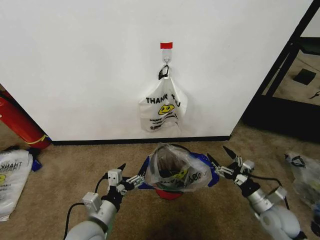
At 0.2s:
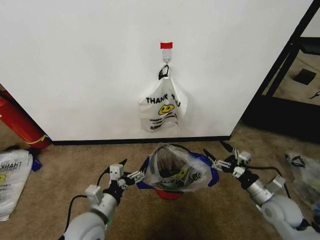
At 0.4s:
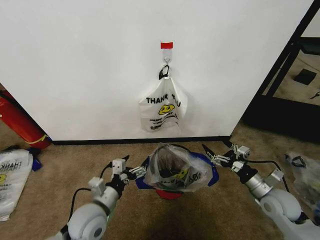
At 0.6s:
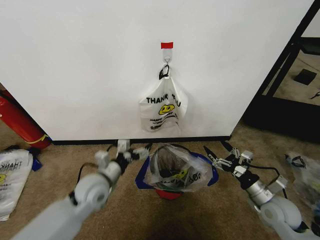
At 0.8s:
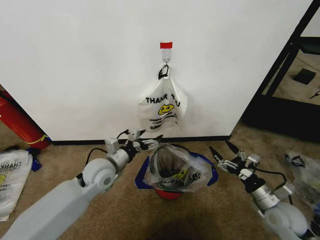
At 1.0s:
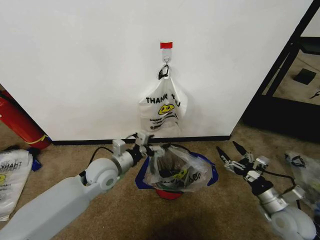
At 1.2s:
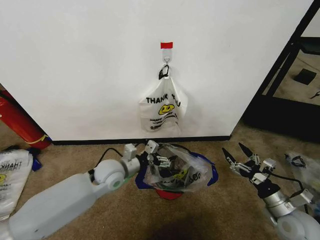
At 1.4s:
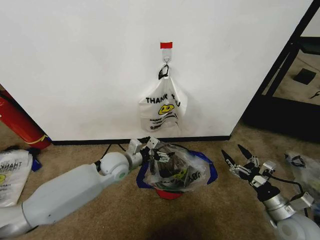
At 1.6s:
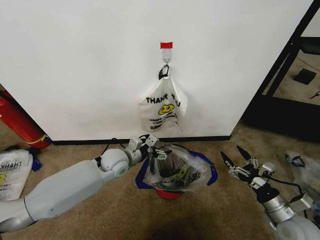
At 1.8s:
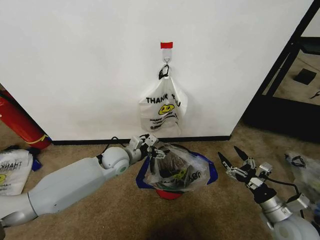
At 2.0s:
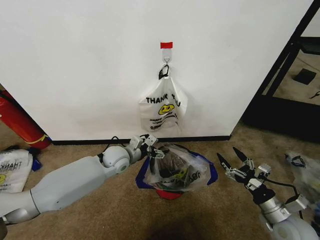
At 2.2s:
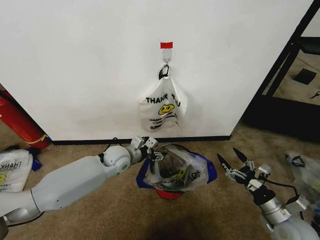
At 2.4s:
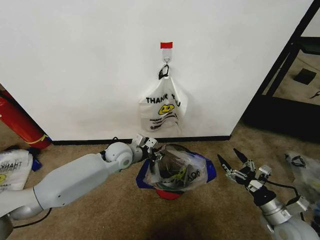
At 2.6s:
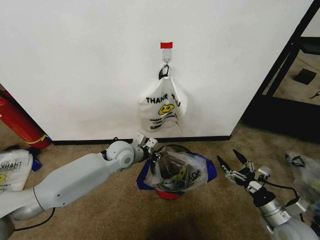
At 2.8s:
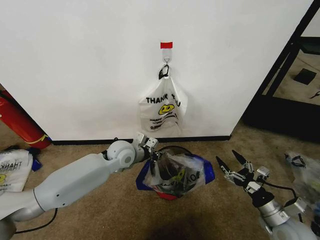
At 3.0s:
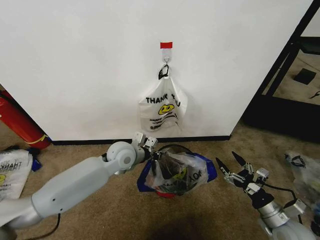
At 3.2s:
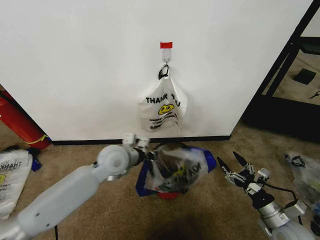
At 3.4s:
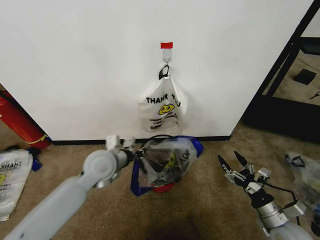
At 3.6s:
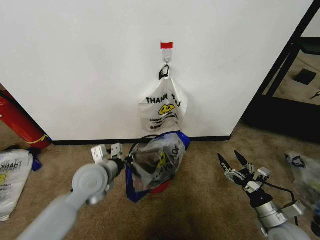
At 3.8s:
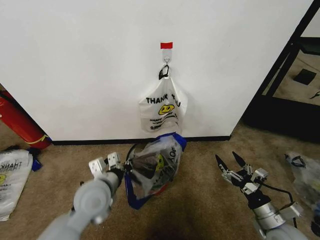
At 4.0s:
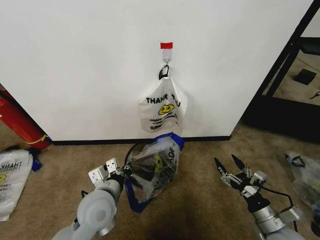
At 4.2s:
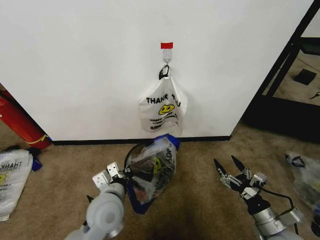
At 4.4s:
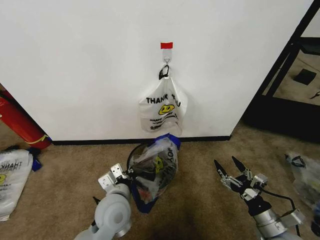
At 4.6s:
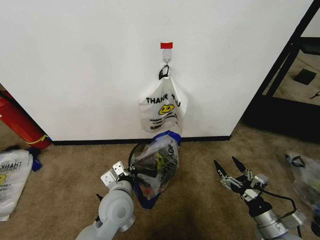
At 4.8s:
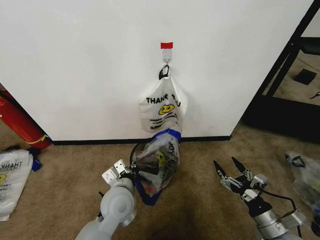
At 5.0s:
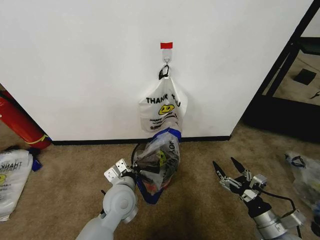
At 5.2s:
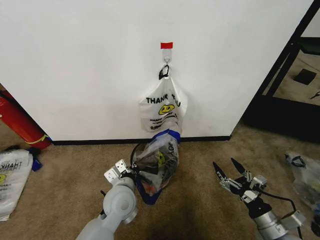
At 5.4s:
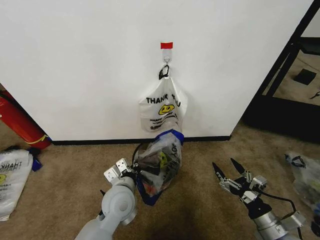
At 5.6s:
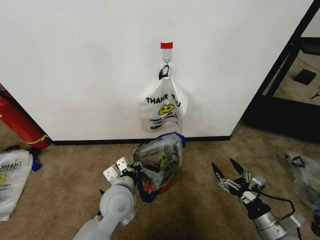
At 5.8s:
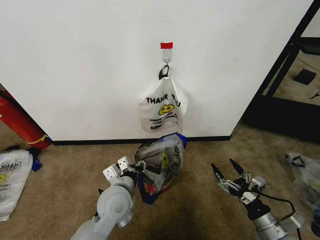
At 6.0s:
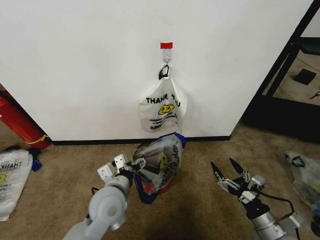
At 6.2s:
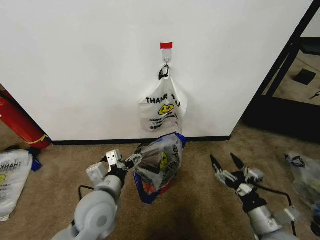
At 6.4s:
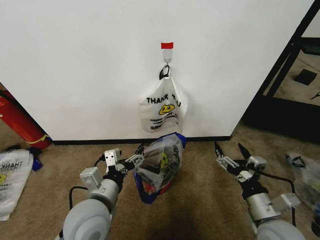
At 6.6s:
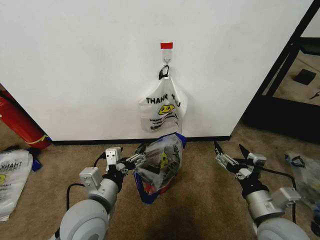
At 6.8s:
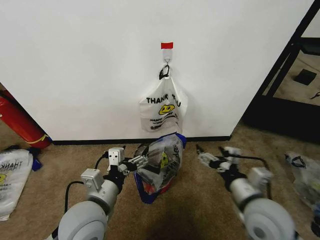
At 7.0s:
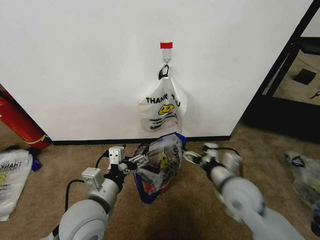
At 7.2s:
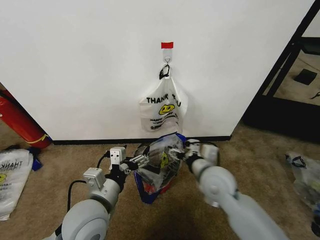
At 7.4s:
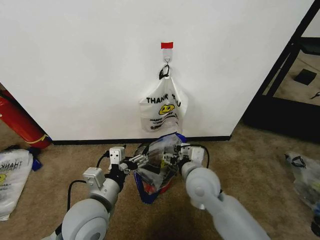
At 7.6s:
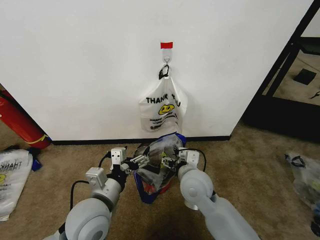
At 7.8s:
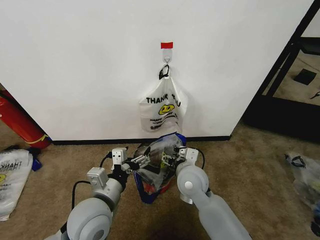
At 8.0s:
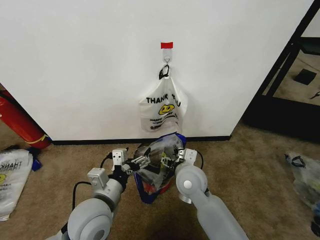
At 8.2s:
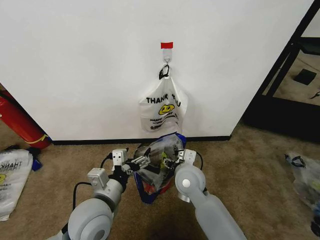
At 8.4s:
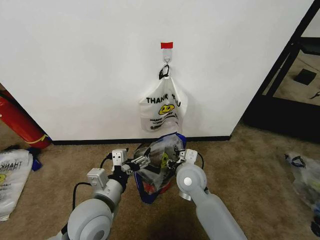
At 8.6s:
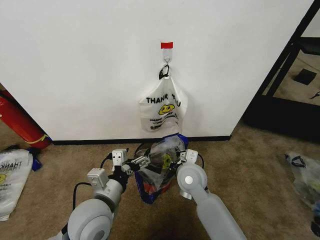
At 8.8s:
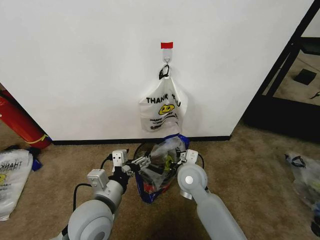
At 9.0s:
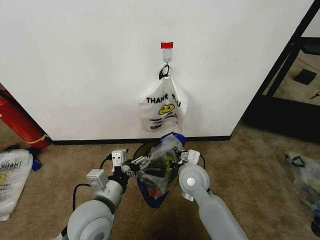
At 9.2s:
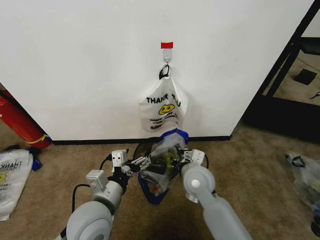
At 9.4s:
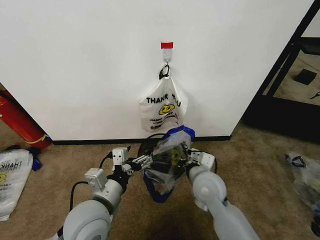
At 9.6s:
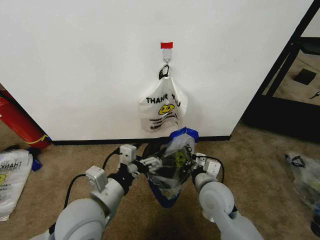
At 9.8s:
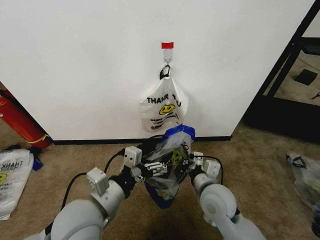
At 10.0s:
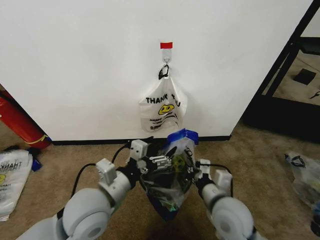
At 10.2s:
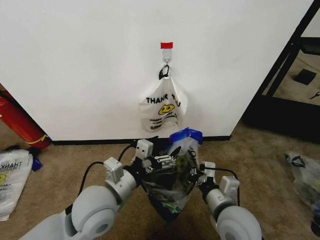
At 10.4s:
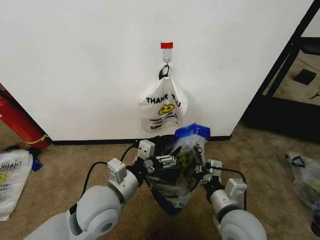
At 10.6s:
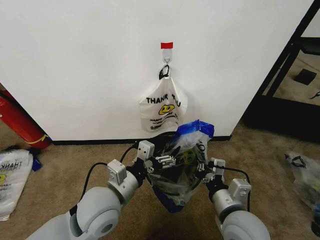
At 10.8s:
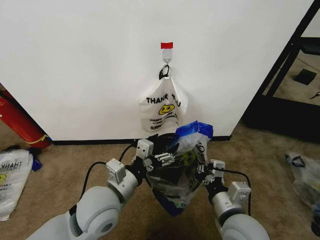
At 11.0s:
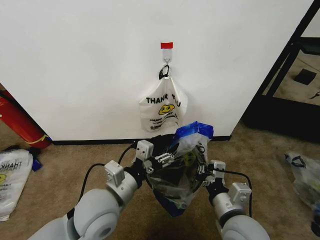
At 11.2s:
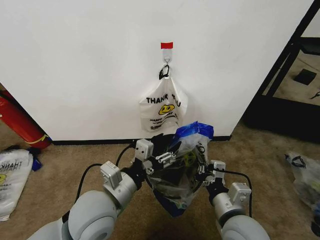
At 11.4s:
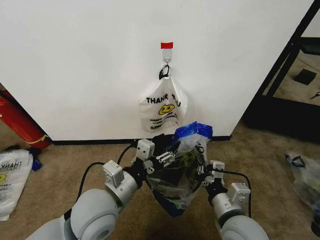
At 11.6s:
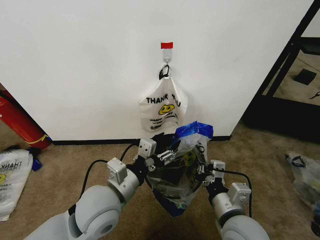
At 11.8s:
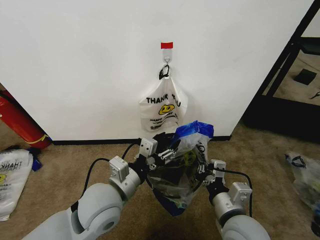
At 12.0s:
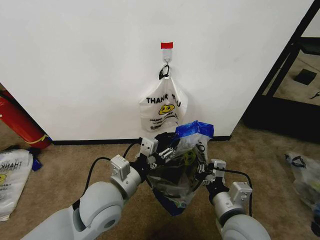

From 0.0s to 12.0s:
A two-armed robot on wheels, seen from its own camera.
Task of the whole recording: Pick up the garbage bag from the wall and place it over the trash bin.
From 0.0s to 1.6s: The right gripper ends up approximately 5 cm from where it was; the left gripper goes some 20 cm forward.
From 1.6s to 3.0s: The left gripper closes.
From 3.0s to 4.4s: The left gripper shifts approximately 15 cm backward.
From 4.4s to 6.0s: The left gripper opens.
From 6.0s to 7.6s: The left gripper changes place by approximately 5 cm. The right gripper travels to the left and forward by about 30 cm.
From 7.6s to 9.0s: The right gripper closes up.
From 9.0s to 10.4s: The right gripper is displaced backward and to the right by roughly 15 cm.
From 10.4s to 12.0s: The left gripper closes up.

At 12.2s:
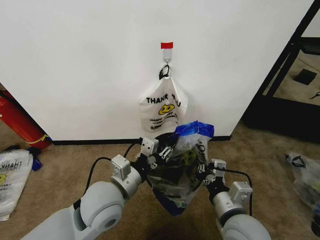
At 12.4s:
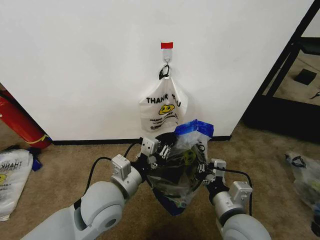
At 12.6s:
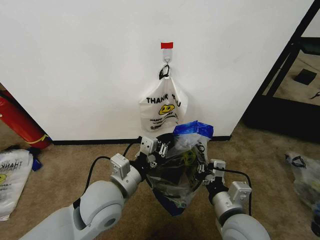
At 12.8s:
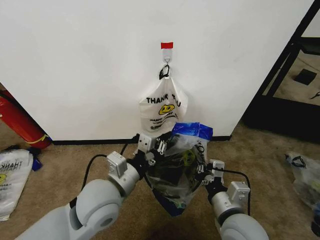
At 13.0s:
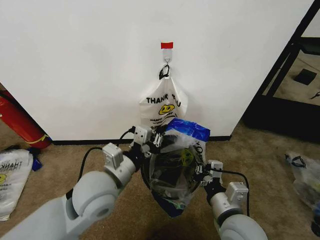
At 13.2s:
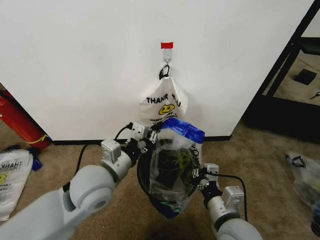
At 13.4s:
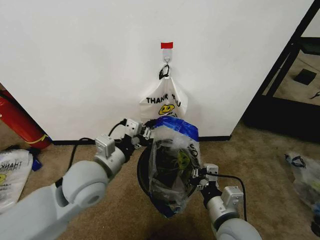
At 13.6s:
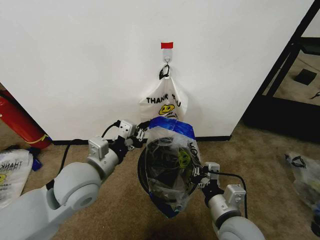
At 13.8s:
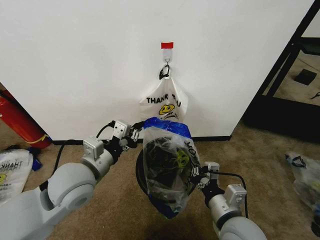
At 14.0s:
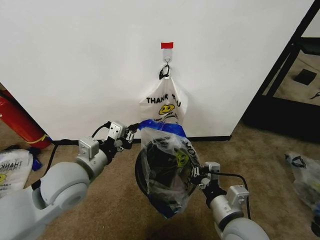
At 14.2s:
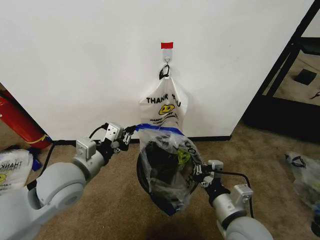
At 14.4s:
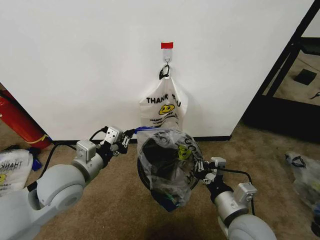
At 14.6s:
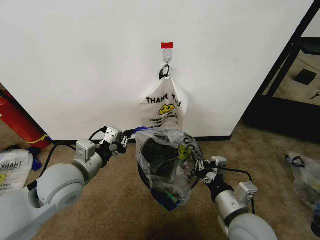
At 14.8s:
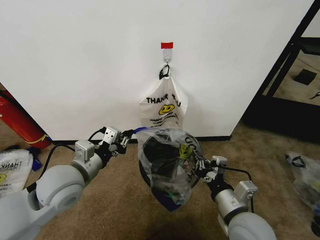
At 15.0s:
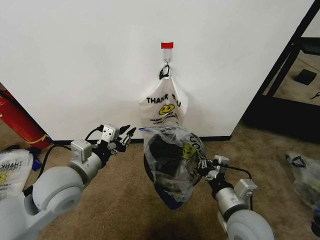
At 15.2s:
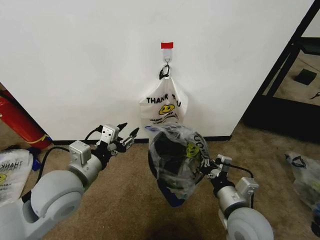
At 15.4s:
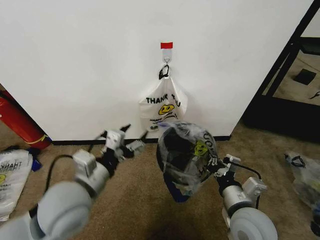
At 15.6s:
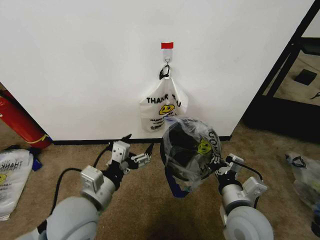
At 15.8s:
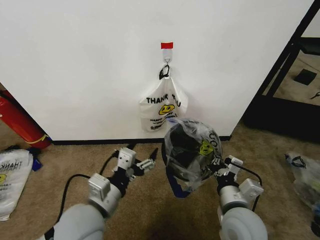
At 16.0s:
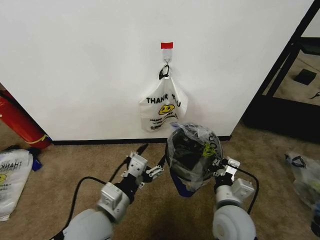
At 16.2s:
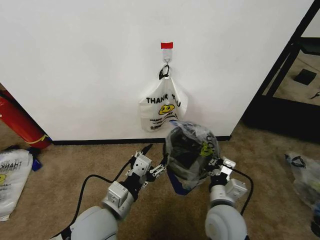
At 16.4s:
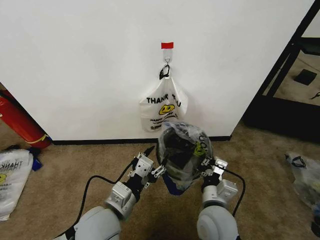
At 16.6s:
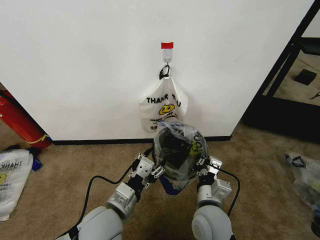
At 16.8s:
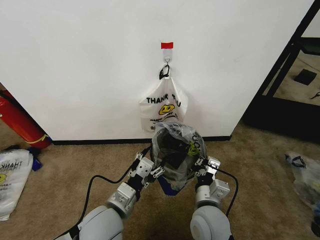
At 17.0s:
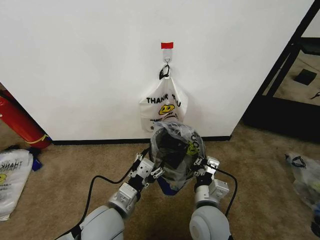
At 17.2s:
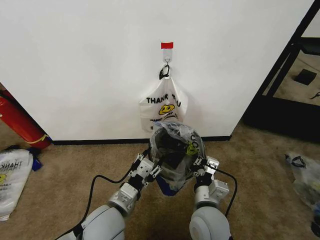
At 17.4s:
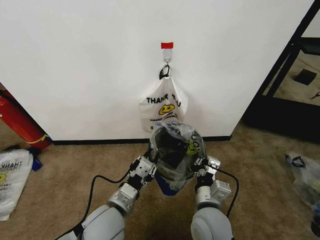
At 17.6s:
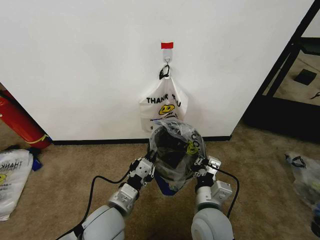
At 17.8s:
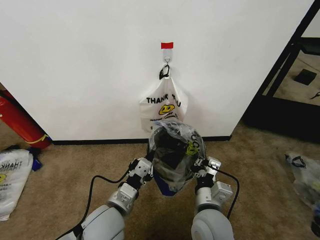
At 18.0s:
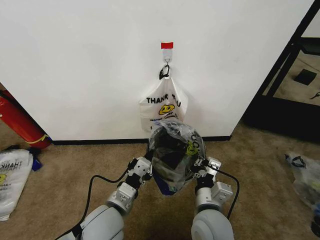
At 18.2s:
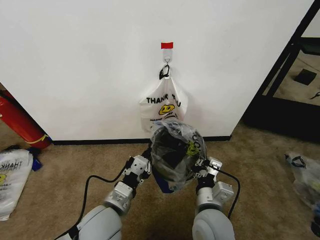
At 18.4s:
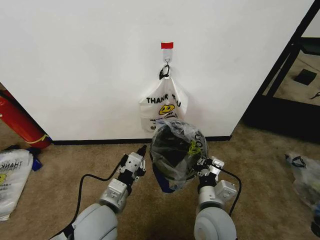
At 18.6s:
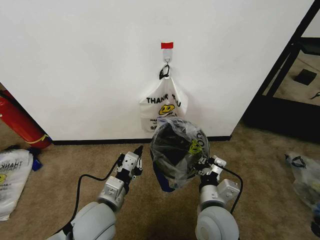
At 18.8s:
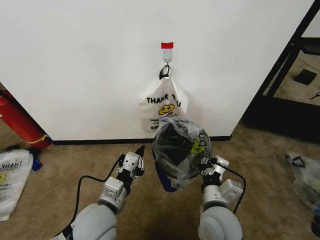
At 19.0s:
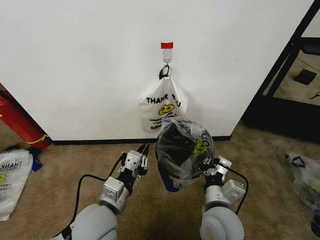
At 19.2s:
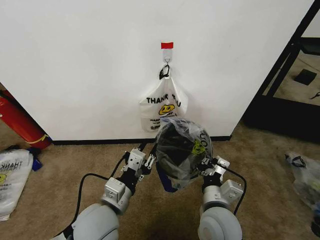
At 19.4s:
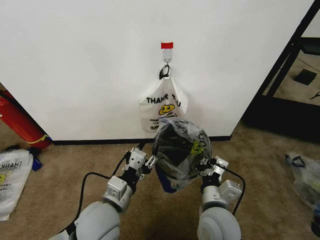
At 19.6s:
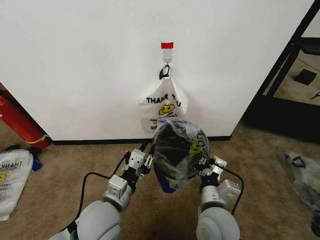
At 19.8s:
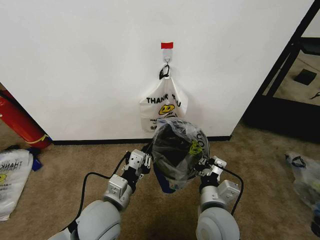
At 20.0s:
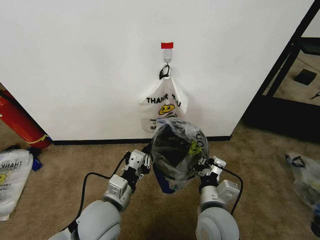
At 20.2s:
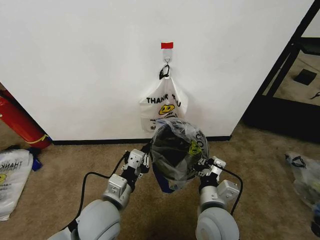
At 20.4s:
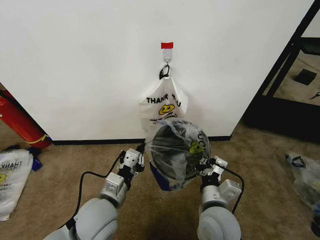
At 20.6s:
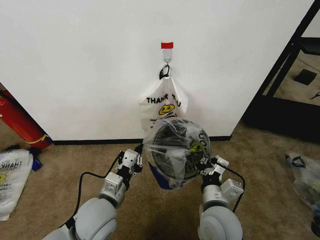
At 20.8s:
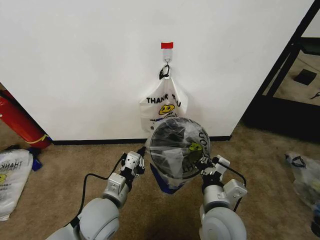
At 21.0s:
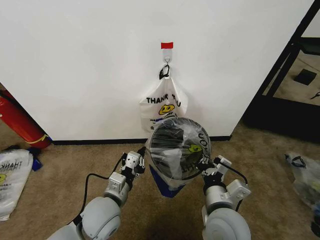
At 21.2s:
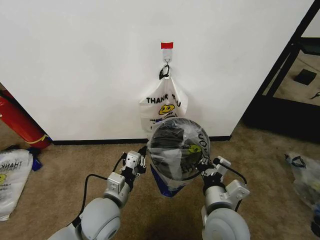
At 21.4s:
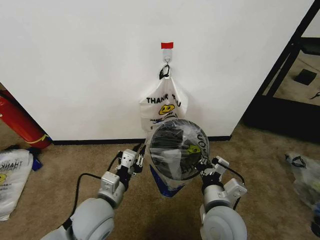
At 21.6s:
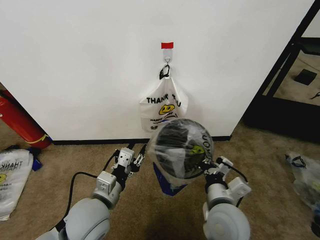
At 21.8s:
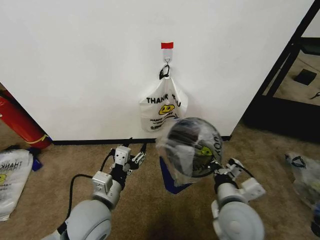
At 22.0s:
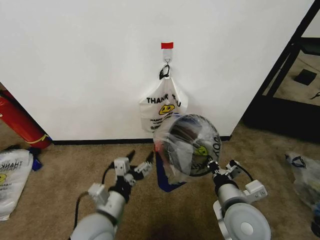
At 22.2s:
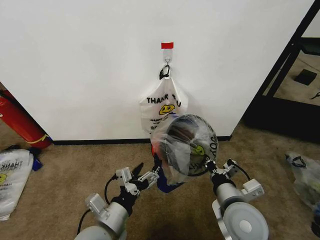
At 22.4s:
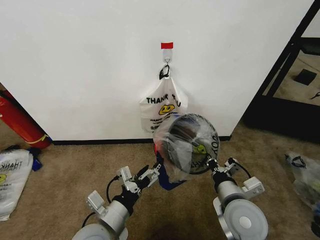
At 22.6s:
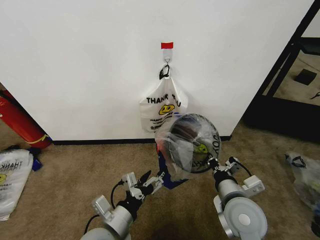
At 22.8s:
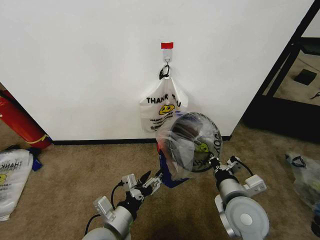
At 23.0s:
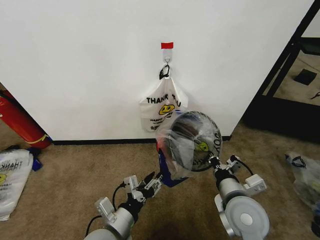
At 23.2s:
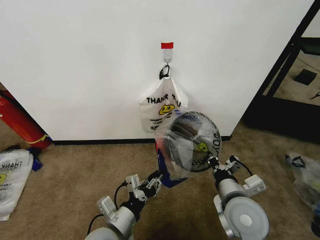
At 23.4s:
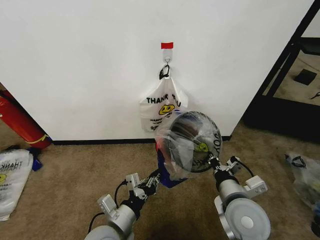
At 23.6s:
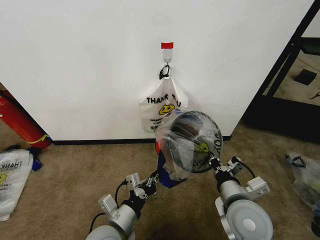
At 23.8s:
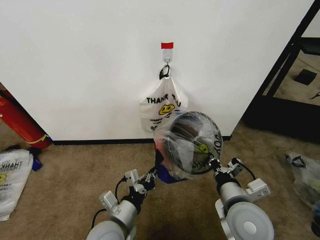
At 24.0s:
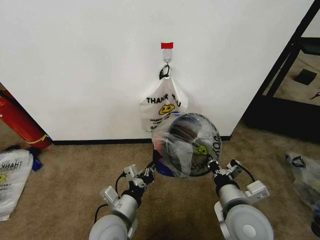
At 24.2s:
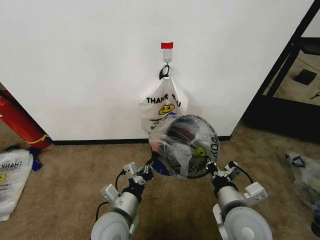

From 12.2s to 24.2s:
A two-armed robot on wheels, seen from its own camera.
Task of the whole recording: Pick up the garbage bag from the wall and place it over the trash bin.
From 12.2s to 13.8s: The left gripper moves to the left, about 5 cm.
From 13.8s to 15.2s: The left gripper opens up.
From 15.2s to 16.6s: The left gripper travels to the right, downward and backward by about 15 cm, while the right gripper shifts some 10 cm to the left.
From 16.6s to 18.2s: The left gripper closes.
From 18.2s to 19.8s: The left gripper opens, then closes once more.
From 19.8s to 21.2s: The grippers move only a little.
From 21.2s to 22.6s: The right gripper goes approximately 5 cm to the right; the left gripper goes approximately 5 cm backward, and opens its fingers.
From 22.6s to 24.2s: The left gripper moves approximately 5 cm, and closes.
